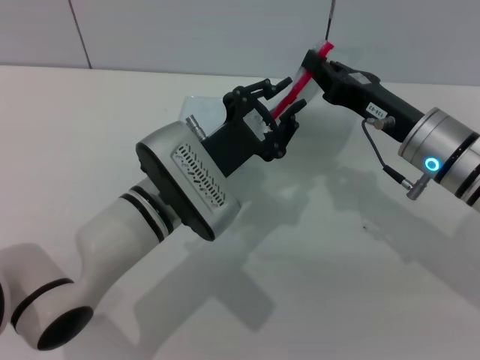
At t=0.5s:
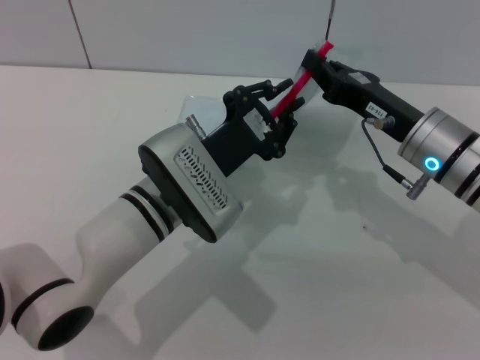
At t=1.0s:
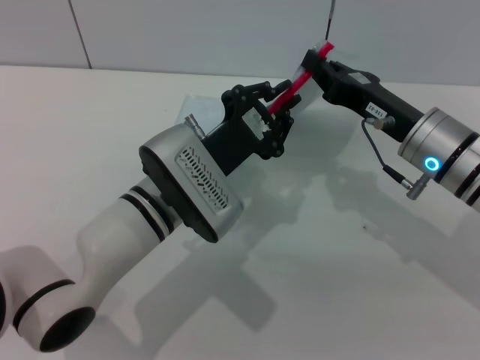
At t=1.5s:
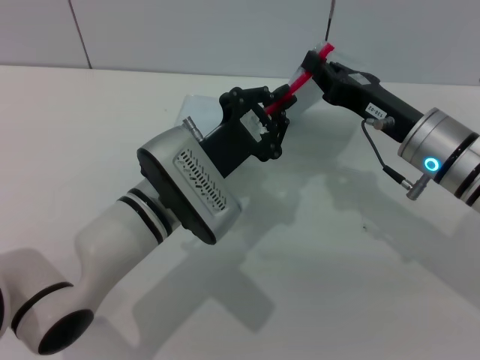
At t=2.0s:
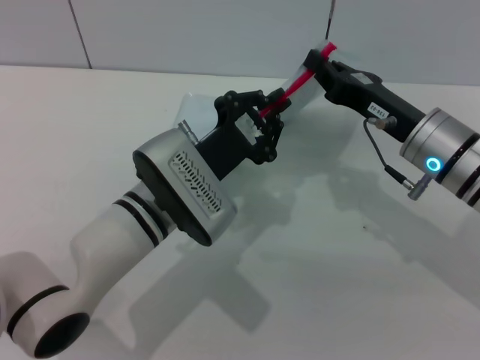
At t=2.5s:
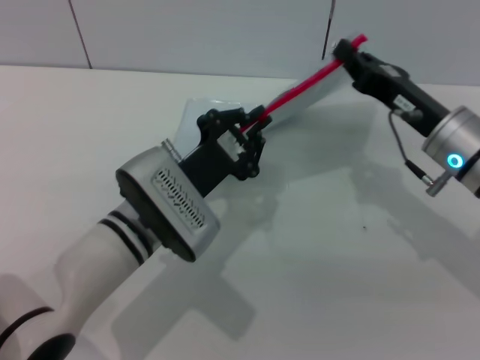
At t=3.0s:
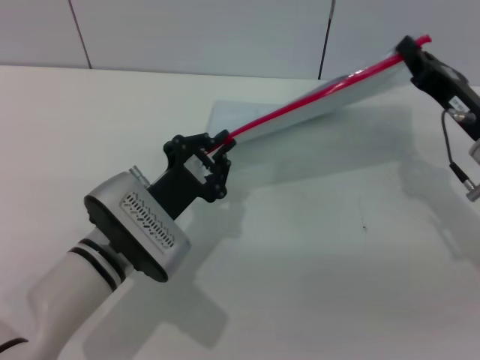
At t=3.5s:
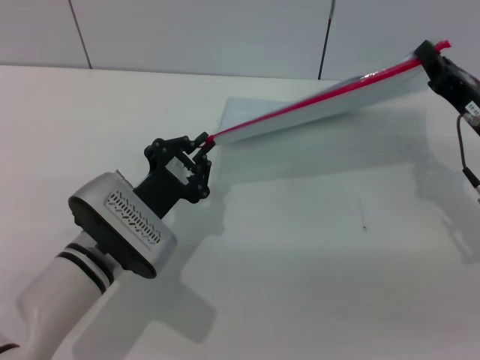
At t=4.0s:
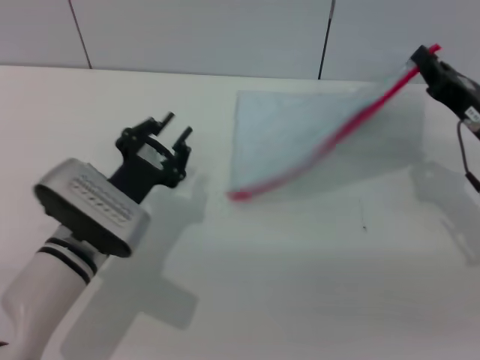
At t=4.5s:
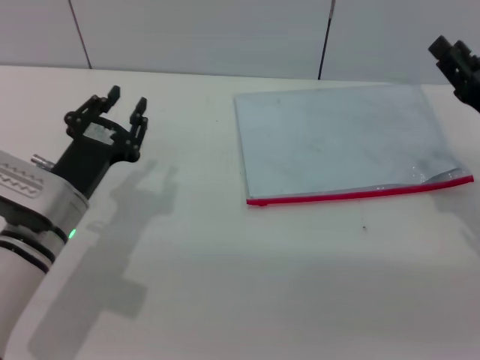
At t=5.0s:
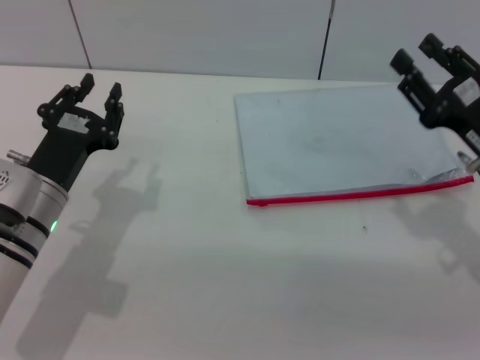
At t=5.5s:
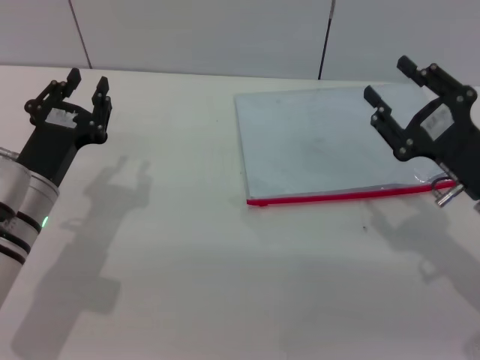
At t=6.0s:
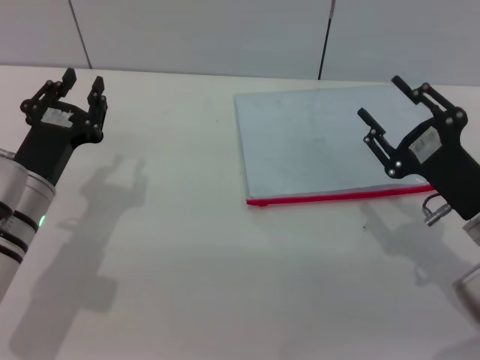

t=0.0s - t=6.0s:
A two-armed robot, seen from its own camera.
Step, t=0.0s - t=3.5s: Pulling up the zipper on the transparent plastic bag with the left gripper to close it.
t=0.0s - t=2.0s: The left gripper closes up.
t=2.0s - t=4.0s: The right gripper travels to the right by roughly 10 cm. The left gripper travels to the left by roughly 5 cm.
t=4.0s - t=6.0s: The left gripper shifts roughly 5 cm to the left, and opens up, while the right gripper travels backward by some 5 cm, and opens.
